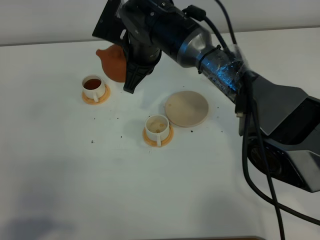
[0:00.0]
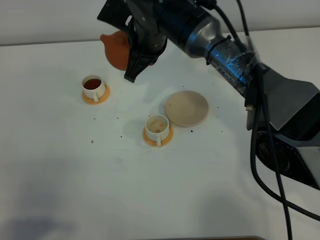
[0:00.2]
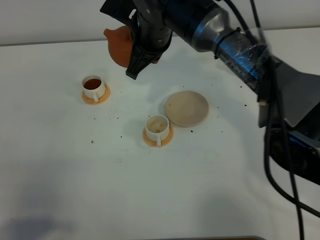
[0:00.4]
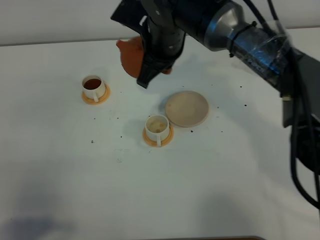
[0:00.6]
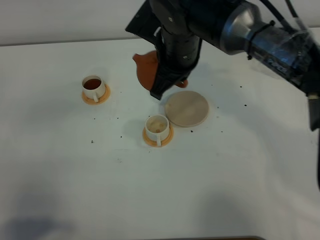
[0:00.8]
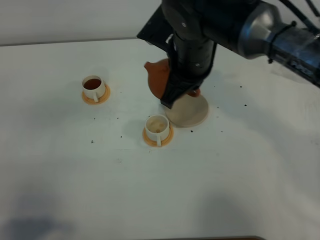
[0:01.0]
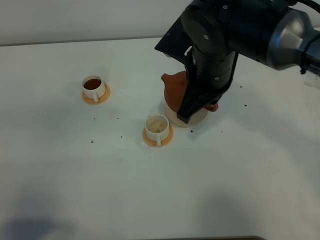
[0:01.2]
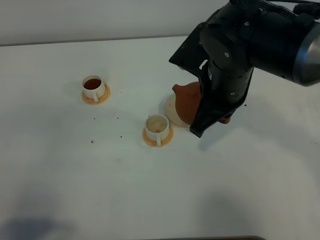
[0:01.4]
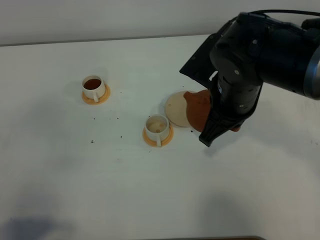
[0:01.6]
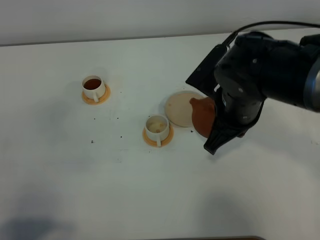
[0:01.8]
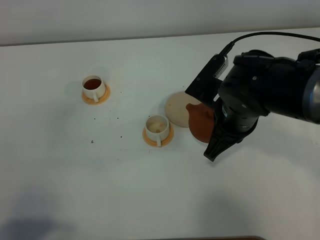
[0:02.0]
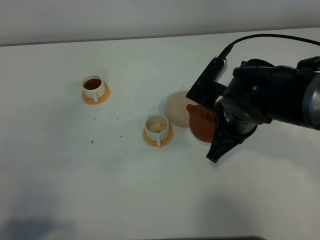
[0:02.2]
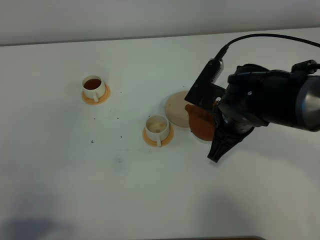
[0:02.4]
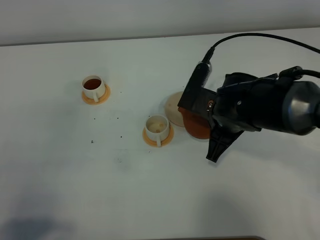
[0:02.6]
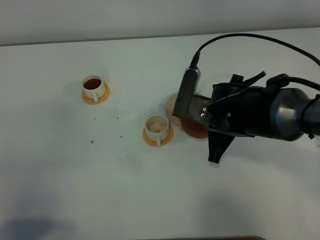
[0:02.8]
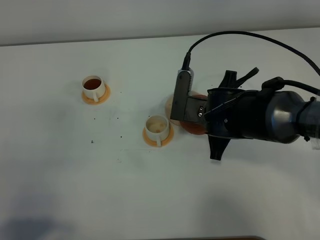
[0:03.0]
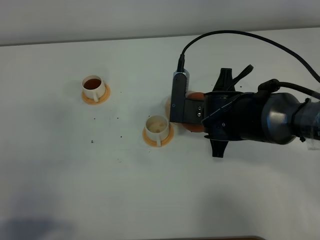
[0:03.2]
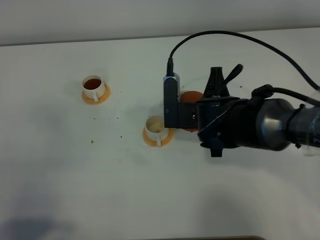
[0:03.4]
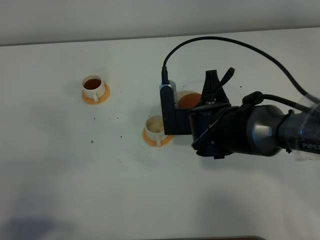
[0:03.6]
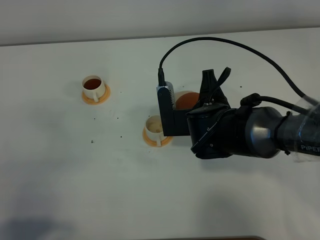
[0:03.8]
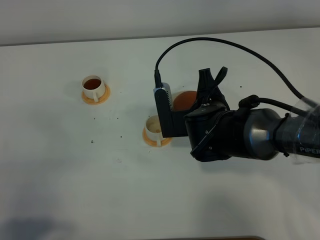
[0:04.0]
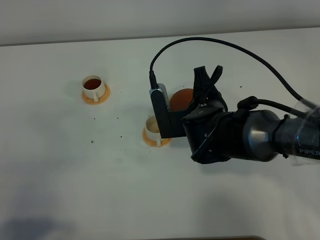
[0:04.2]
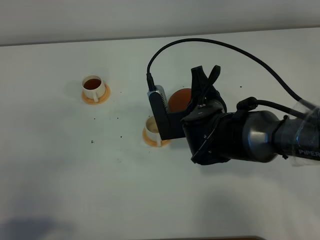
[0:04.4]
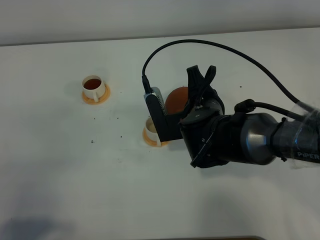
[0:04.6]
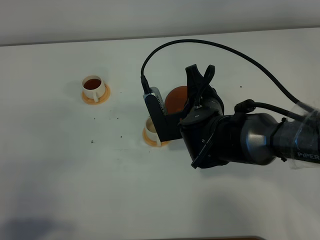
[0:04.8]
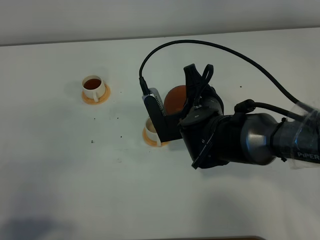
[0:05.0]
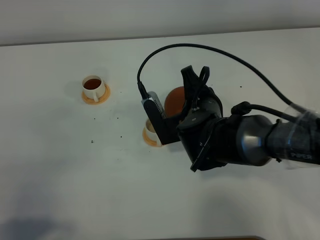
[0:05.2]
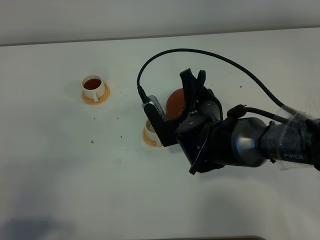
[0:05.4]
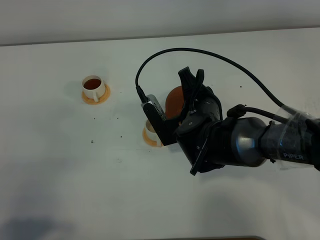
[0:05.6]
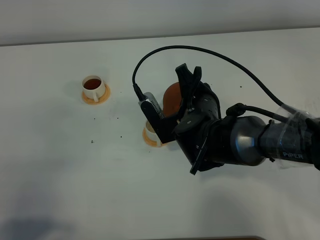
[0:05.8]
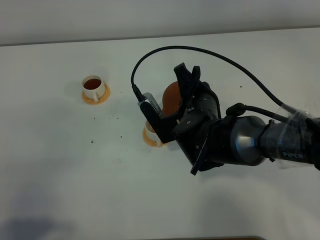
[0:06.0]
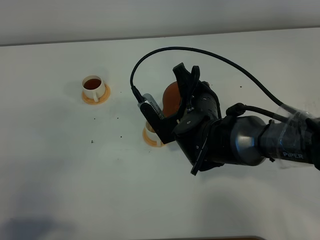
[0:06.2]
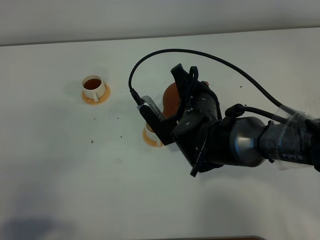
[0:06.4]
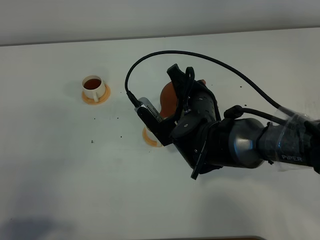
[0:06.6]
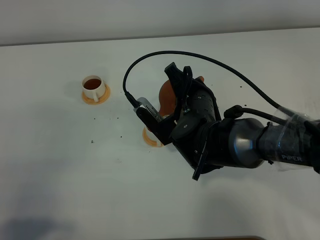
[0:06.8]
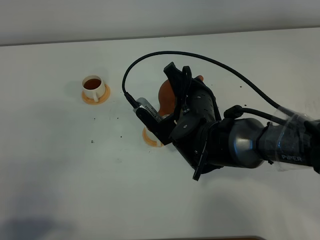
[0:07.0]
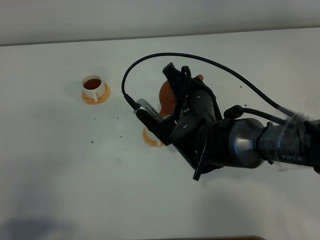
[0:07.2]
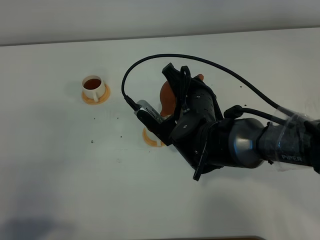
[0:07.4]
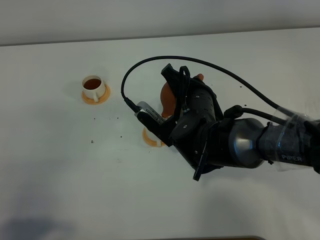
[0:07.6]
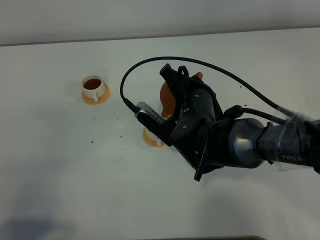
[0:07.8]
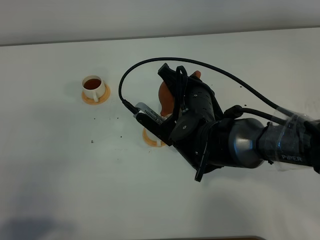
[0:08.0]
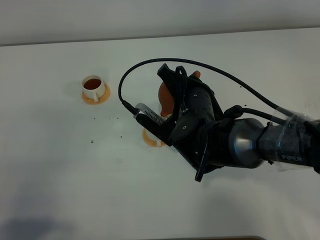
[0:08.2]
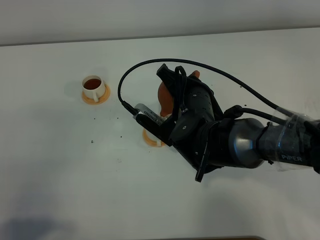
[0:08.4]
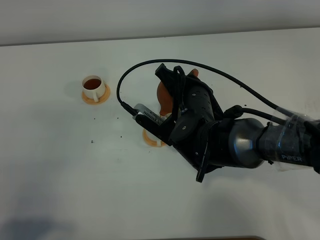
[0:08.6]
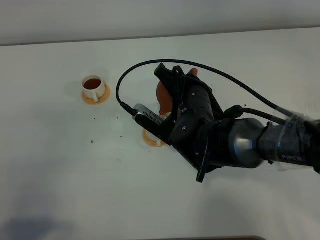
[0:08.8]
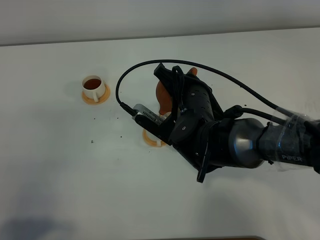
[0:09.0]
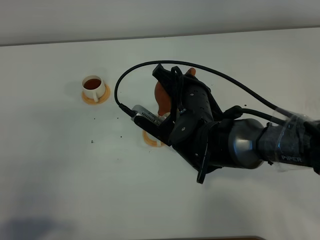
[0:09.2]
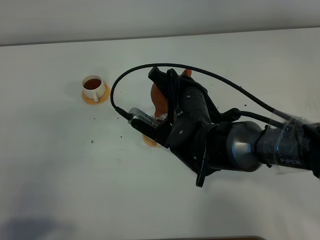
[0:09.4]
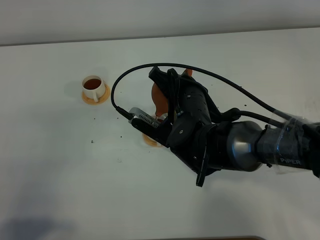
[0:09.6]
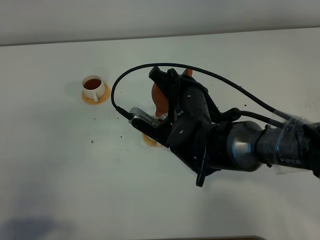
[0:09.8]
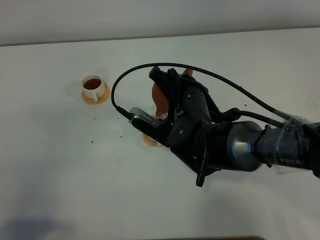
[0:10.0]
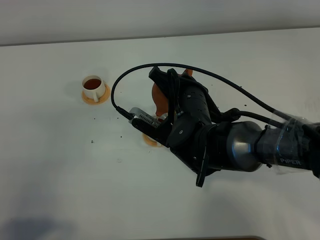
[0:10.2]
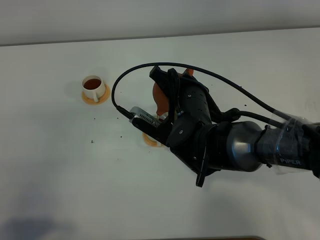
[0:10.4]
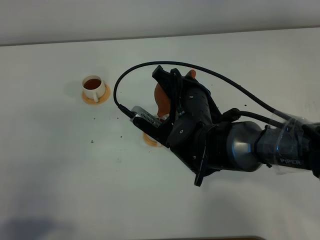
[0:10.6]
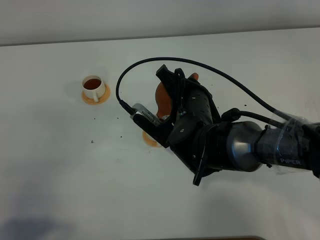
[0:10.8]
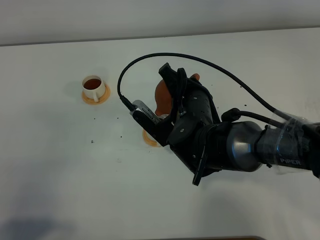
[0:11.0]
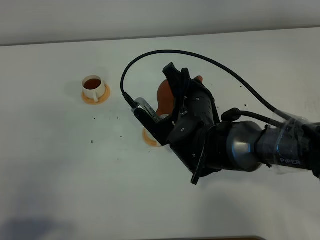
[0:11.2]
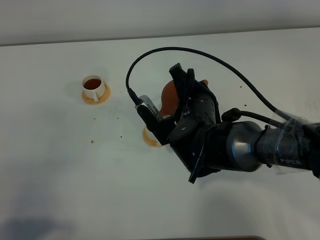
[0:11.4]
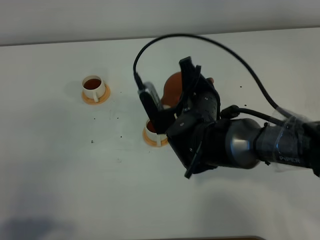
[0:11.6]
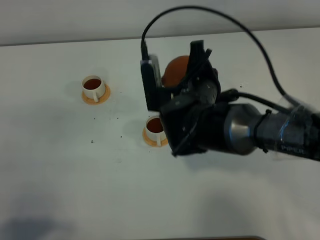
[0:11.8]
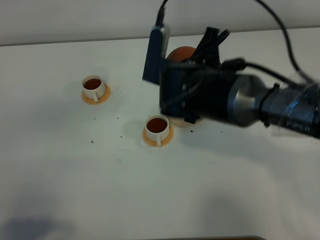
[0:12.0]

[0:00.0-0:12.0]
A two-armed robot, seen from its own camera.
Task of the whole recording: grasp the brown teapot and pour the tea into the two white teacups one by one, put the brown teapot back in its original place.
Step, 0:00.0 to 0:11.4: Pour tea into the teacup with the right gripper.
0:00.0 to 0:01.6: The right gripper goes some 20 cm to the right and backward.
0:01.6 to 0:03.0: The right gripper shifts roughly 10 cm downward.
0:04.4 to 0:06.0: There are only small adjustments of the grippers.
0:06.0 to 0:07.6: The grippers make only small movements.
0:07.6 to 0:09.0: The grippers make only small movements.
0:09.0 to 0:10.4: The two grippers keep their place.
0:10.4 to 0:12.0: The right gripper is displaced upward by some 5 cm.

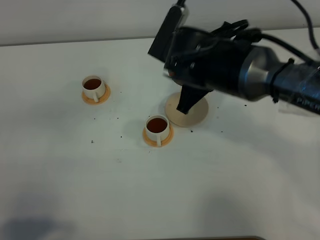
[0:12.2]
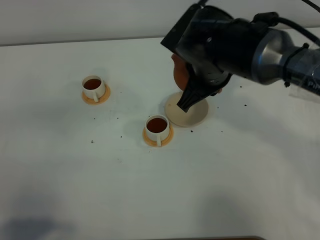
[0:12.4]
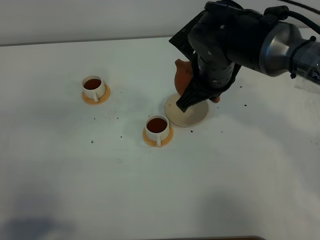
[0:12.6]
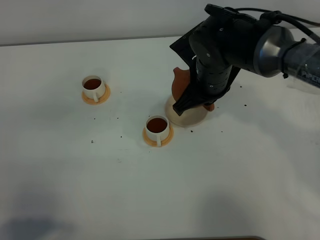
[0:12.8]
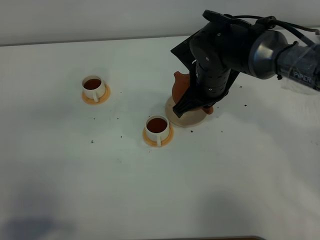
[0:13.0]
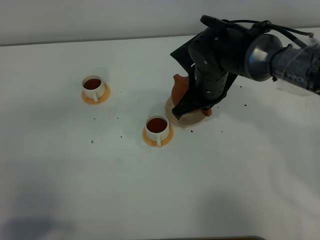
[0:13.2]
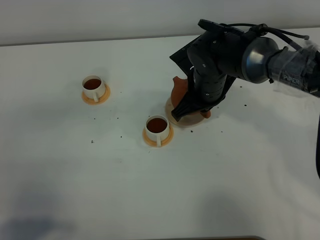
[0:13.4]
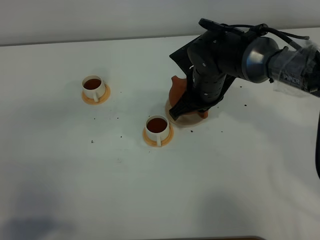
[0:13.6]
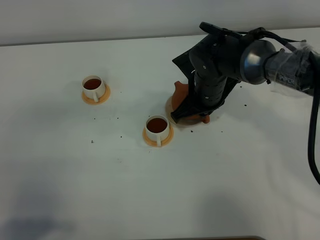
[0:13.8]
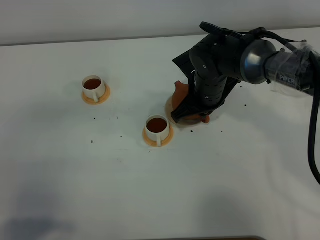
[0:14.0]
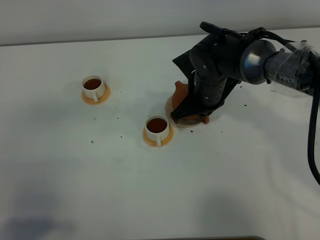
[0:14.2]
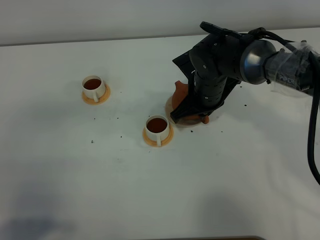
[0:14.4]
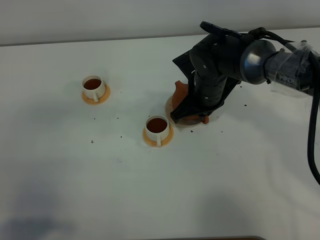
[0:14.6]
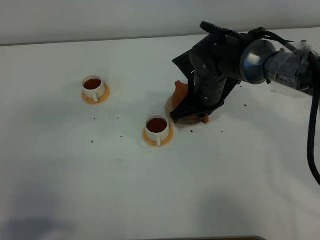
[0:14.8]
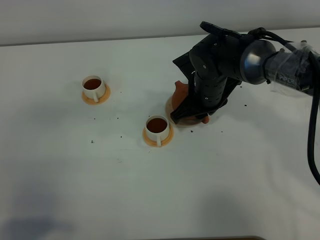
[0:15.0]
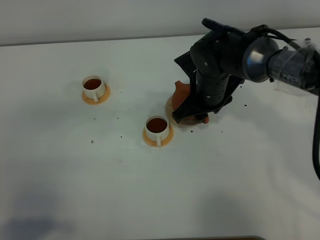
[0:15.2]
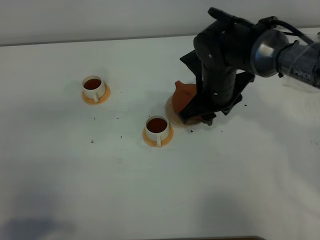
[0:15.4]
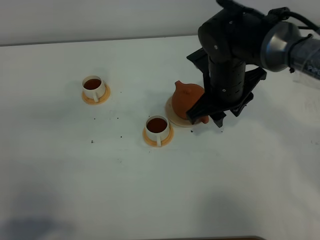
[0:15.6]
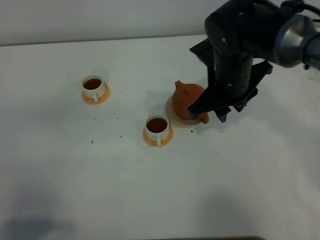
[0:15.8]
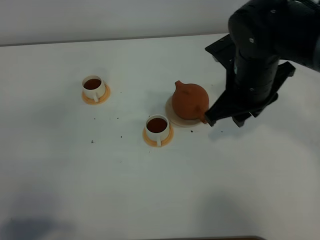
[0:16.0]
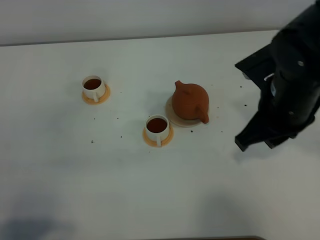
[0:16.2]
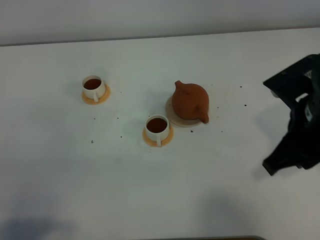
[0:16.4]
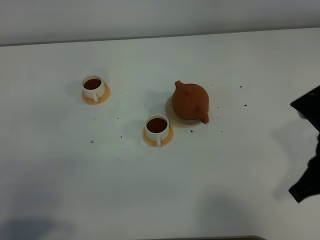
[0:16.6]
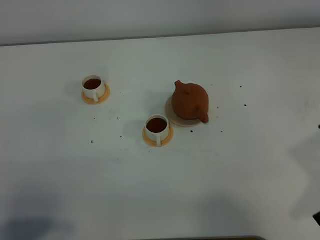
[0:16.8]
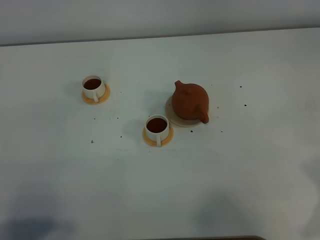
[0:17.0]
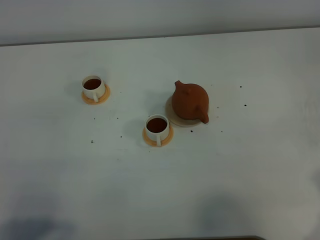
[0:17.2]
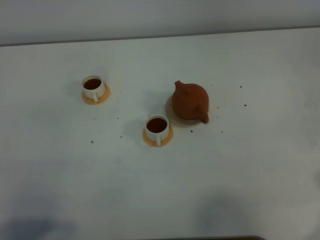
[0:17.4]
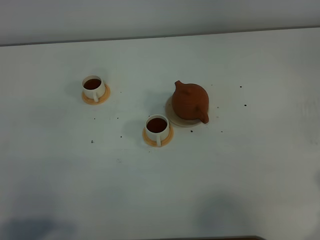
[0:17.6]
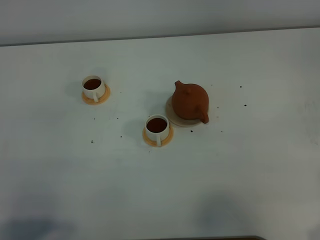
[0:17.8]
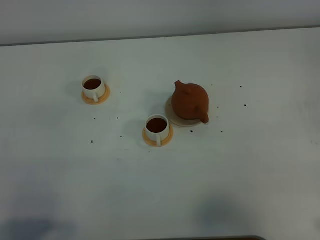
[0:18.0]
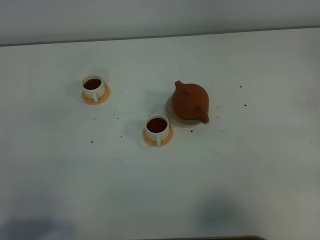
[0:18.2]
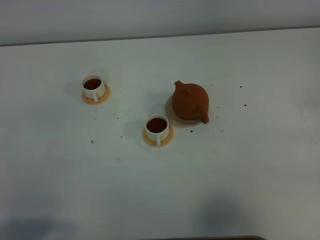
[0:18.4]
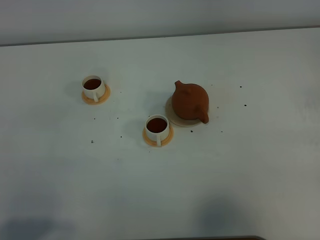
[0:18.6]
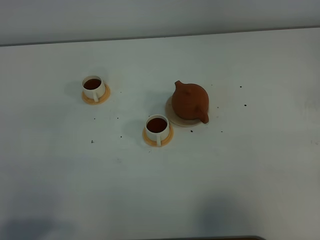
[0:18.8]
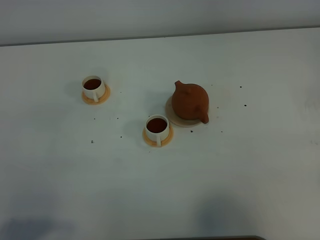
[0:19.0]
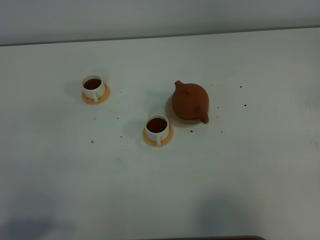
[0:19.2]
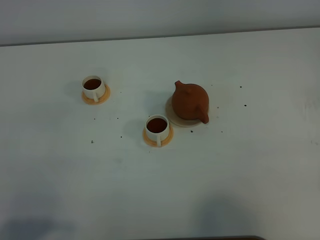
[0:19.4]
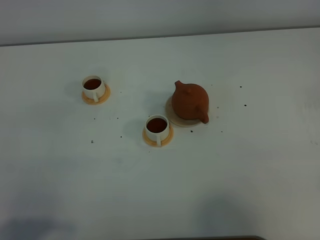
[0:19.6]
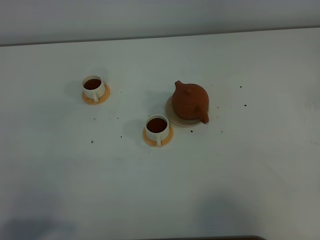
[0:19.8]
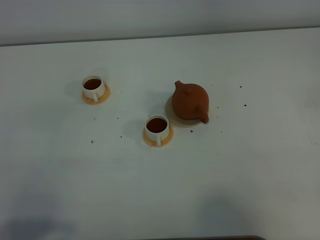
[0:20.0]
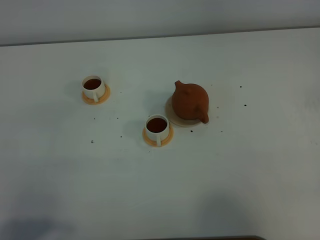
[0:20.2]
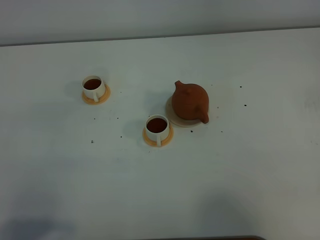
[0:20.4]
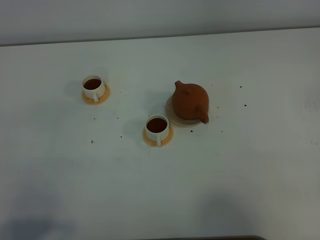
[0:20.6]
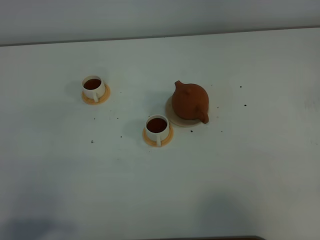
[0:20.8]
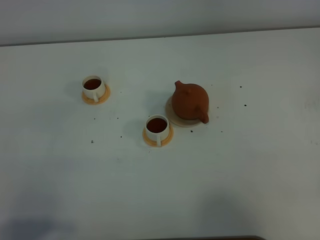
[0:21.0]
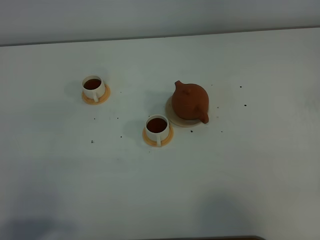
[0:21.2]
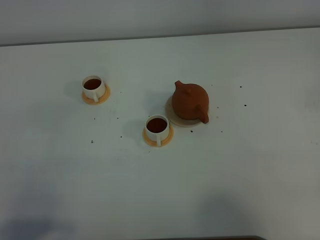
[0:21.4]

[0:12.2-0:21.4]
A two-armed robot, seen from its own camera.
Task of the whole recording: grasp the brown teapot and pour the tea into the two white teacups one by one, put the brown teapot back in its original place.
0:12.2 to 0:13.8: The right gripper goes some 10 cm downward.
0:13.8 to 0:15.2: The right gripper opens.
0:15.2 to 0:16.8: The right gripper moves backward, to the right and upward, some 30 cm, and closes its fingers.
0:19.8 to 0:21.4: The two grippers keep their place.
